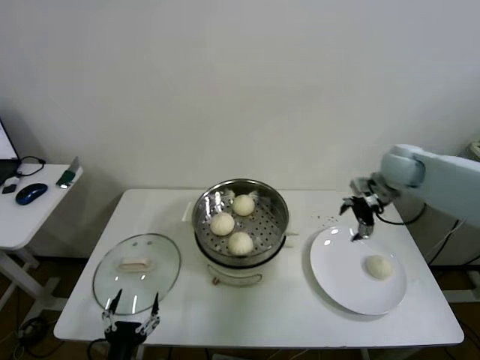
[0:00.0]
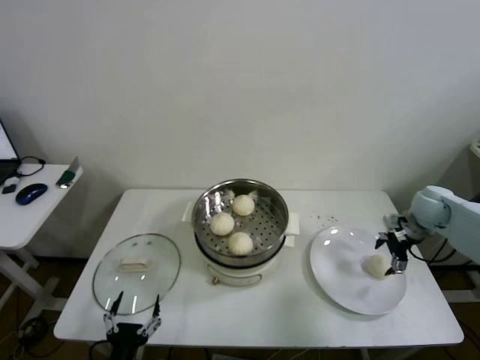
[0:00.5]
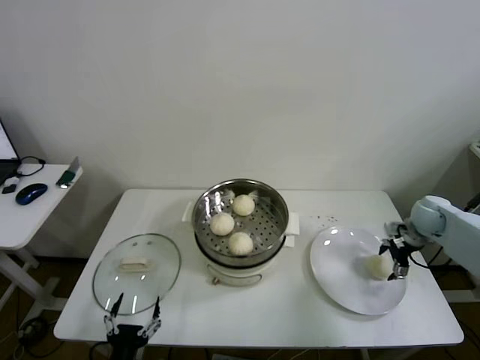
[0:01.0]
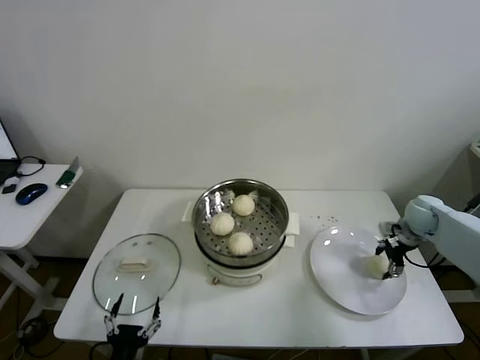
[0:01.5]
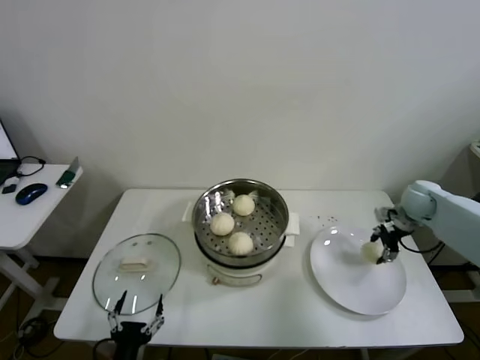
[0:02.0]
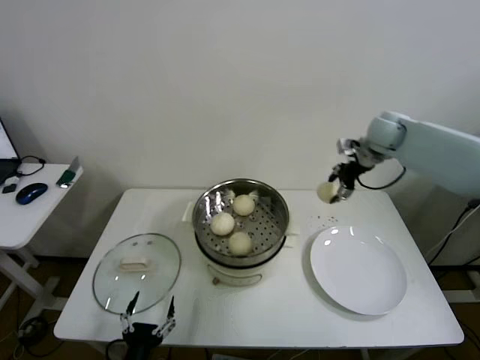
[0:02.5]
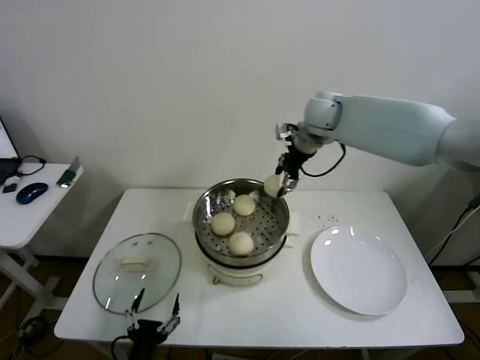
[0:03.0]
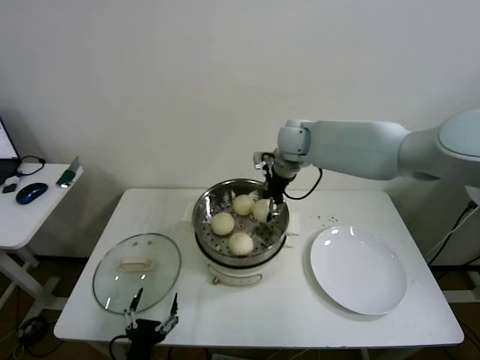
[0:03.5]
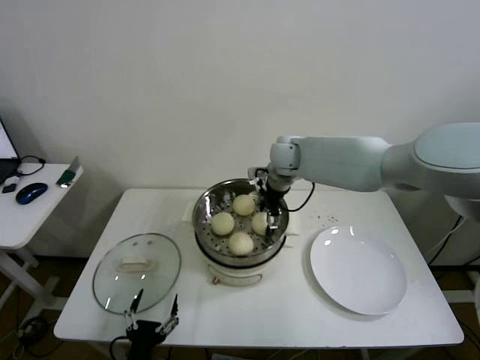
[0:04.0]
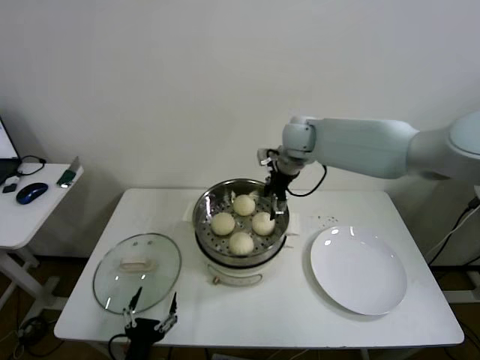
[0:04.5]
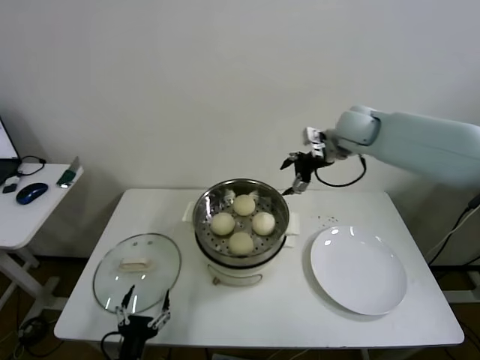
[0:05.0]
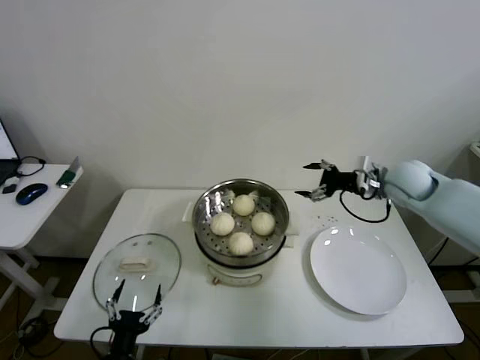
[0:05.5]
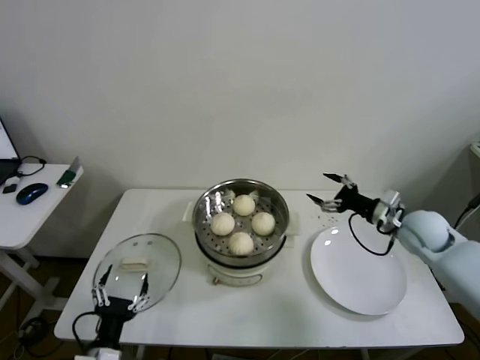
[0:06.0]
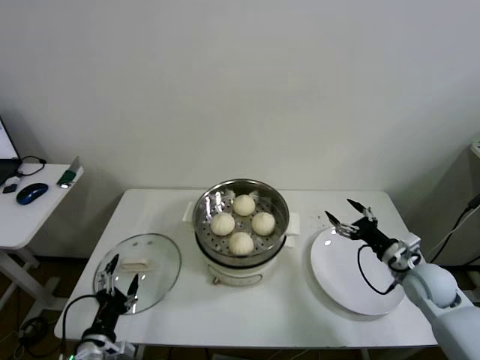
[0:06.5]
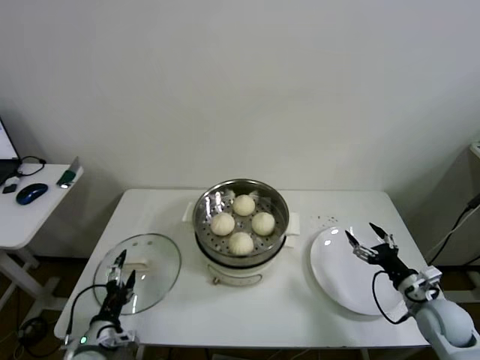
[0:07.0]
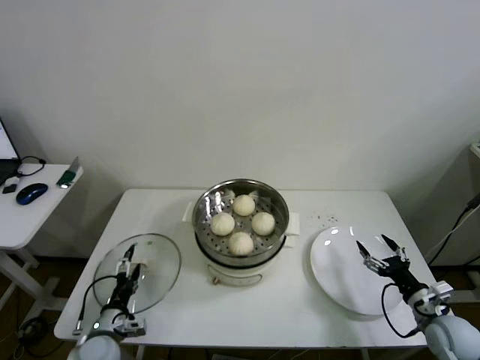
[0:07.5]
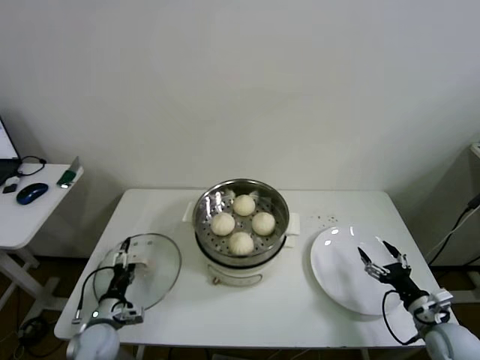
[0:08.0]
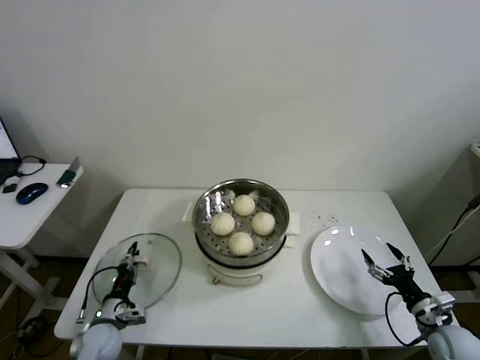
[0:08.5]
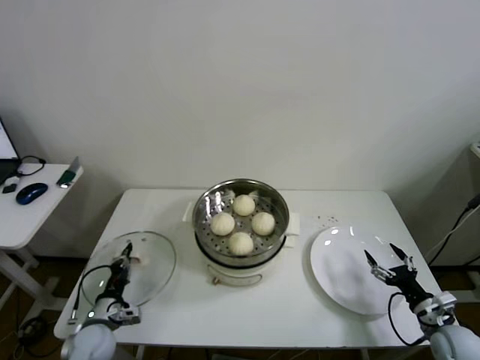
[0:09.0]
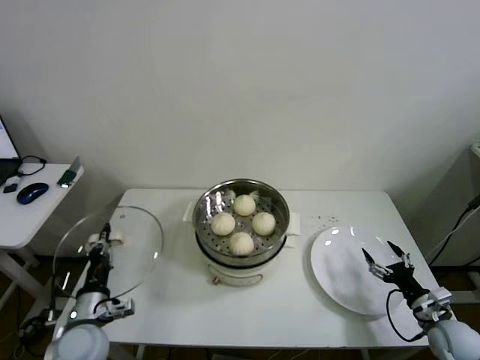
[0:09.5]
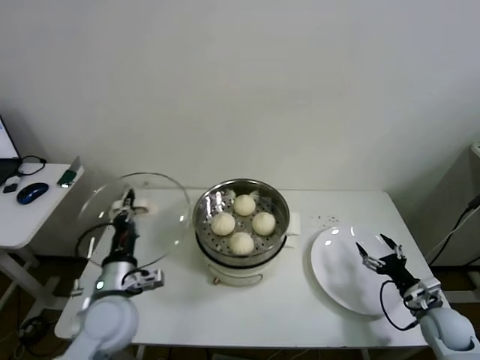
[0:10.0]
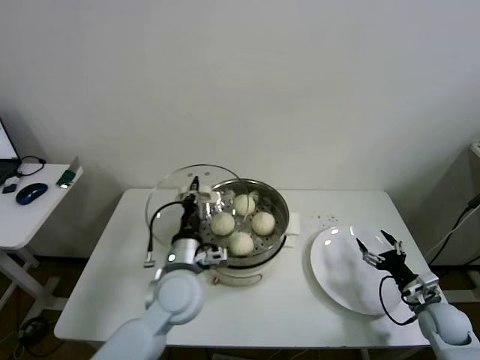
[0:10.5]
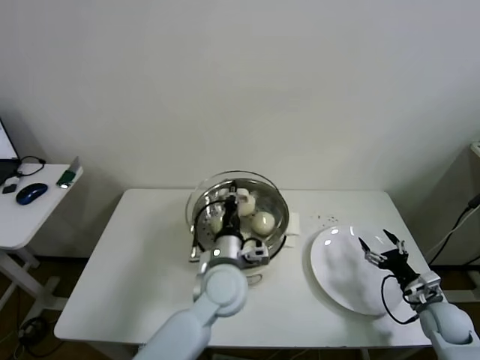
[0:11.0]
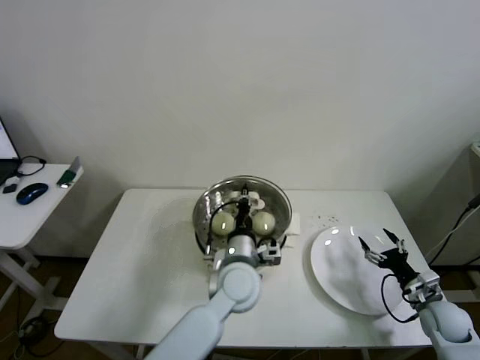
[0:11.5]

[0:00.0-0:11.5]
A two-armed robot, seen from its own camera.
Step, 0:00.0 to 0:01.5: Grasp the baozi in the plate with right gripper.
Step, 0:02.0 to 0:04.0: Place the baozi on the steamer with right gripper.
Step, 0:04.5 to 0:08.5: Grasp the pot lid with left gripper.
0:00.0 to 0:02.0: The right gripper heads downward and to the right, covering roughly 15 cm, and closes its fingers.
0:02.0 to 0:04.0: The right gripper heads to the left, covering approximately 35 cm, and opens its fingers.
0:04.0 to 0:06.0: The right gripper heads to the right and backward, covering approximately 35 cm; the left gripper moves roughly 5 cm.
0:06.0 to 0:07.5: The right gripper is displaced backward and downward by roughly 25 cm; the left gripper travels forward, downward and to the left by roughly 15 cm.
0:07.5 to 0:09.5: The left gripper travels upward by roughly 10 cm, and closes.
0:09.5 to 0:11.5: The left gripper moves to the right, roughly 30 cm.

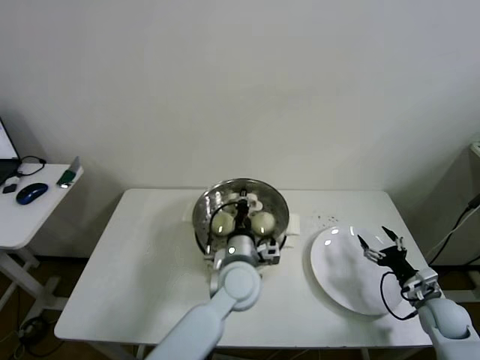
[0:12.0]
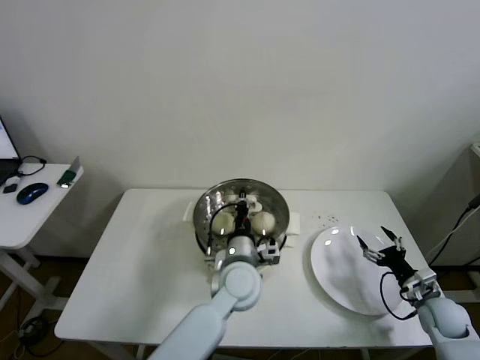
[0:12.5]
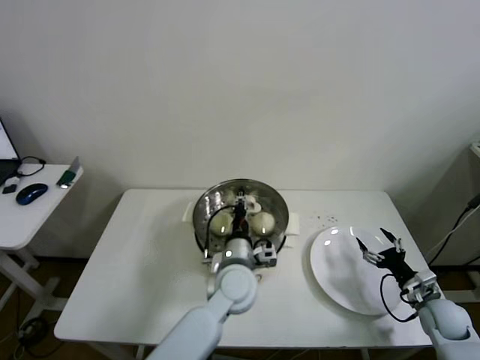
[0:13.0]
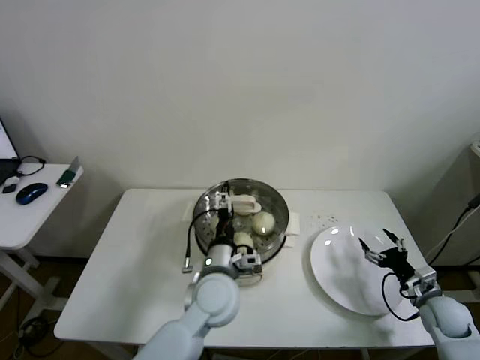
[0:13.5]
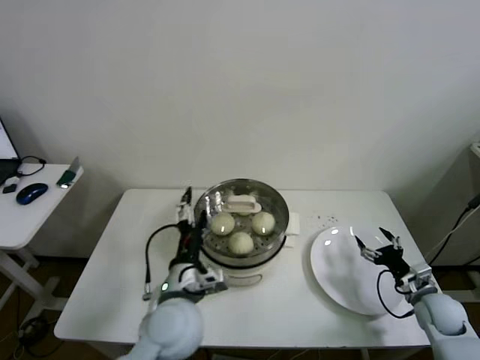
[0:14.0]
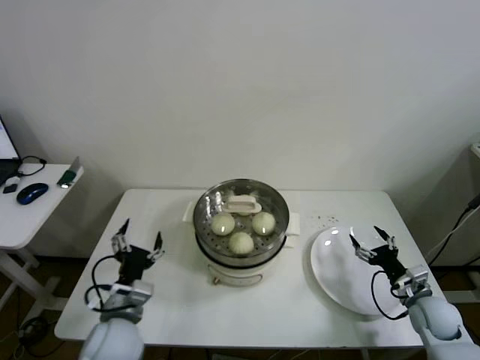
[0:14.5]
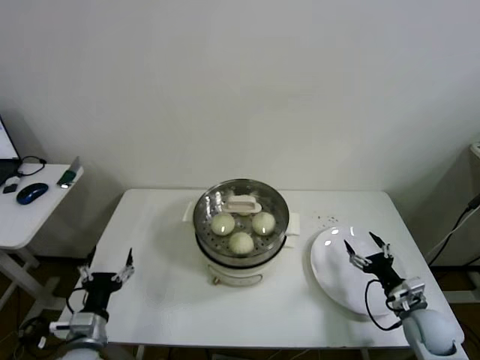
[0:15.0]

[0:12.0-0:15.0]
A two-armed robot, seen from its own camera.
0:12.0 to 0:13.5: The left gripper opens.
0:13.5 to 0:15.0: The right gripper shifts roughly 5 cm to the left, while the left gripper travels to the left and backward by some 30 cm.

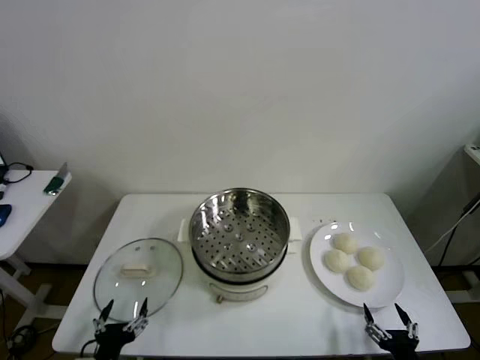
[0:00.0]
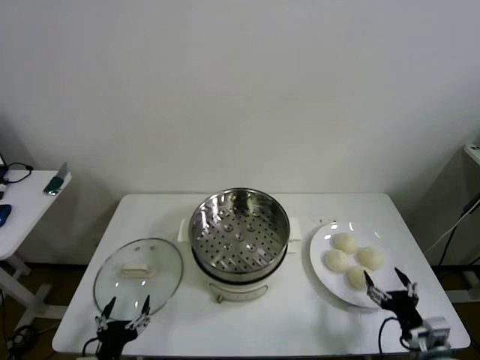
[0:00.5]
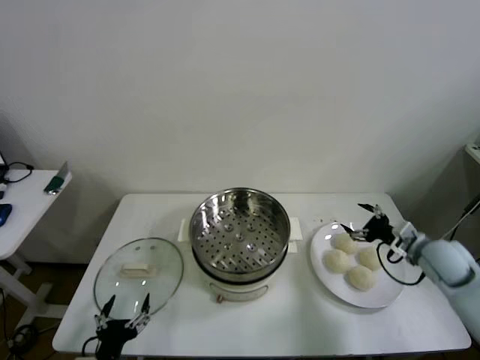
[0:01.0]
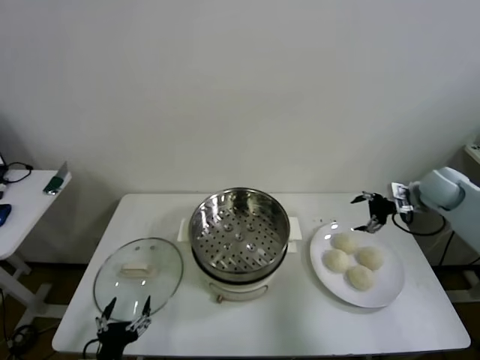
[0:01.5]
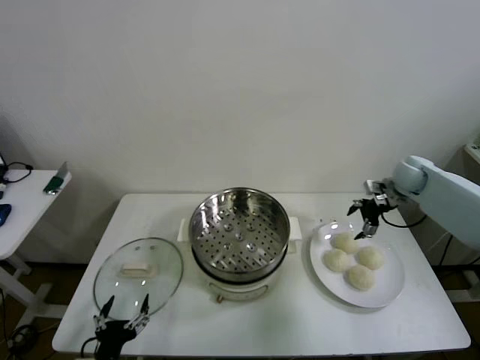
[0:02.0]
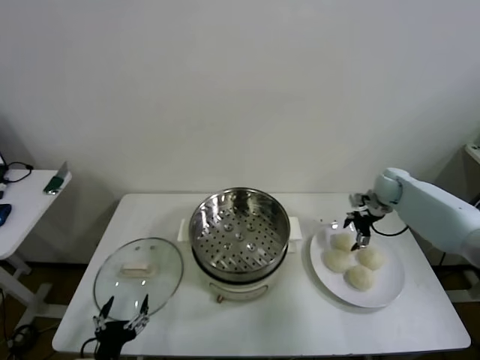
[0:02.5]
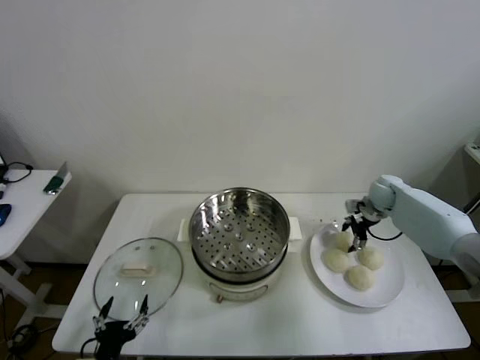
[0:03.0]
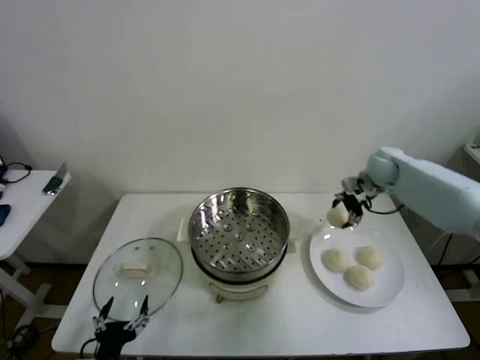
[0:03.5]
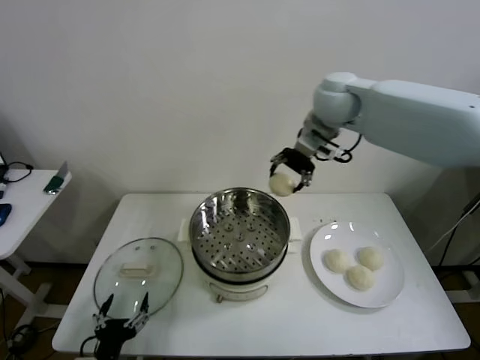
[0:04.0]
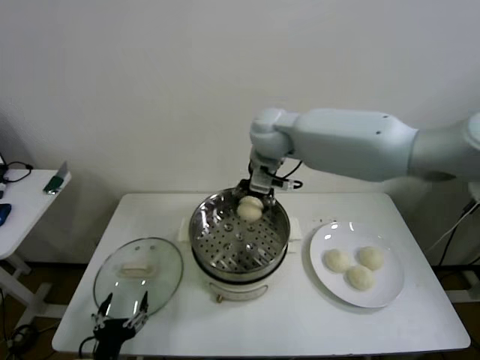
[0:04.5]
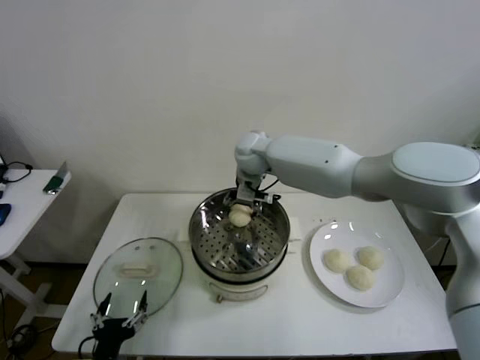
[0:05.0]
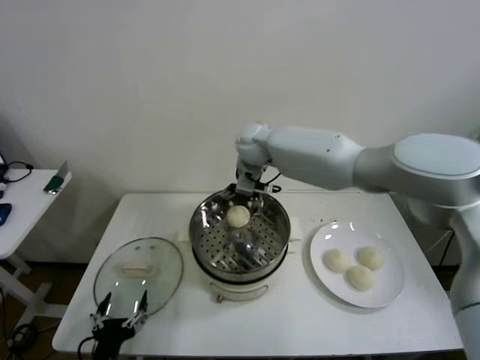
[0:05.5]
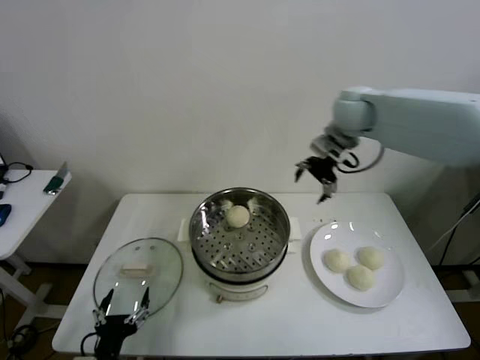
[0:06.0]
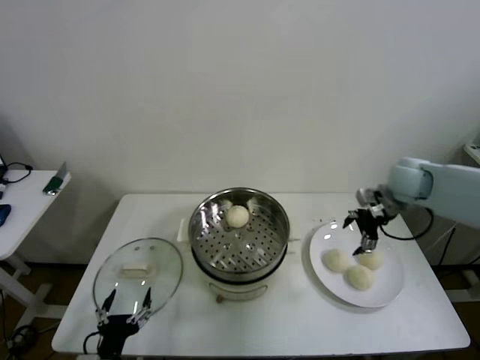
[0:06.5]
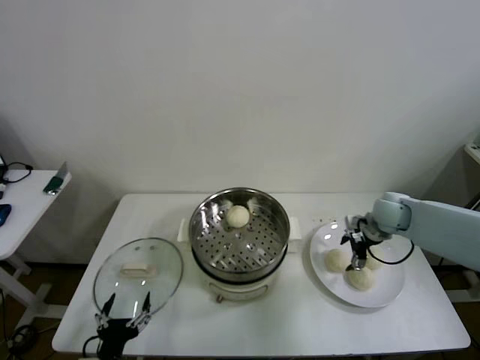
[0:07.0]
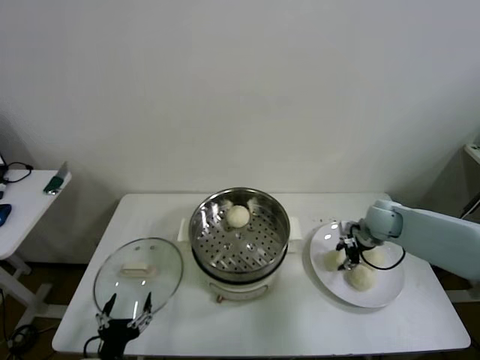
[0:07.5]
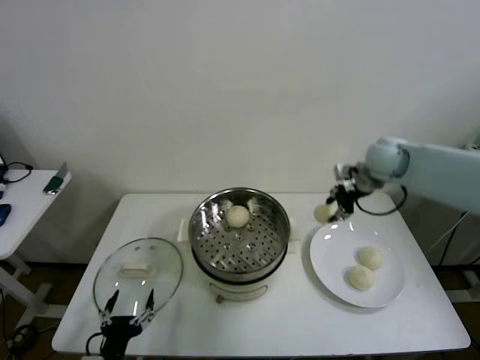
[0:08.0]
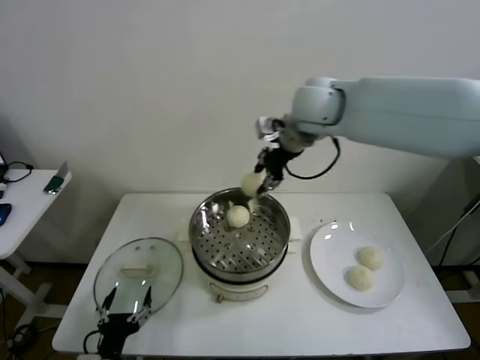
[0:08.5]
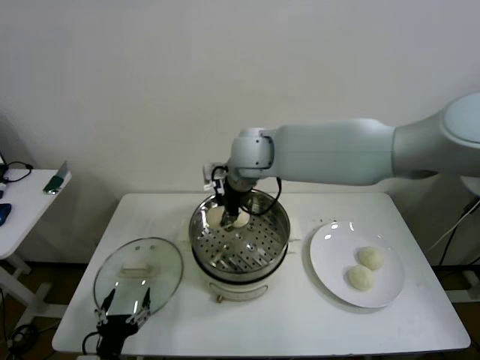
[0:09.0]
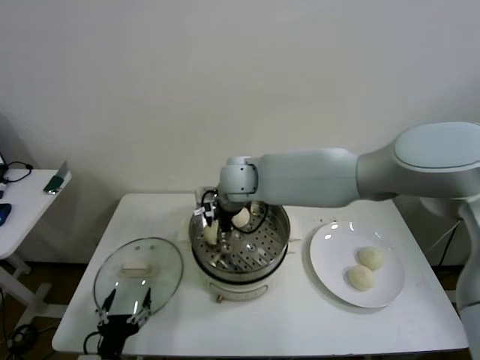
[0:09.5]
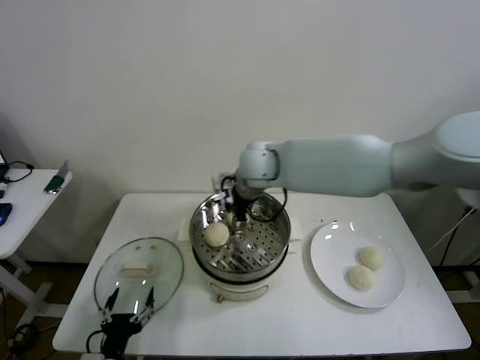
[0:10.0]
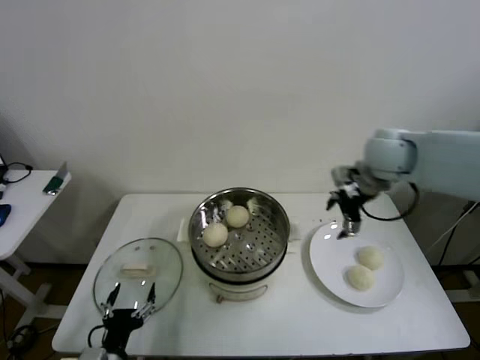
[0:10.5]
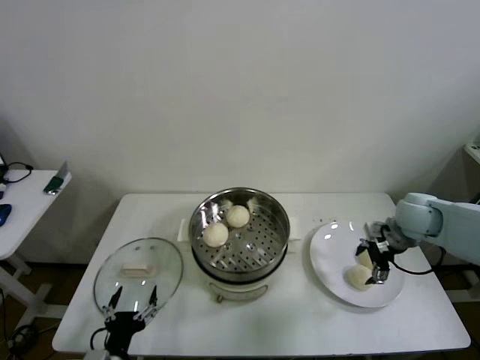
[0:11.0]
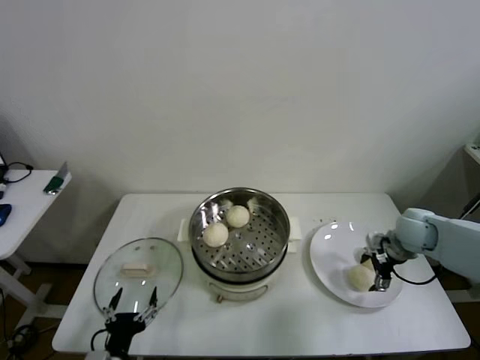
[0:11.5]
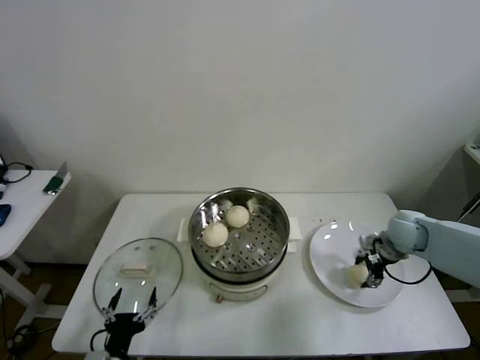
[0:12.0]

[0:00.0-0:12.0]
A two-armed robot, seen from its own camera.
Step, 0:00.0 to 0:03.0: Grasp the baozi in the plate with right gripper.
Step, 0:03.5 to 0:05.5: Place the baozi on the steamer with right gripper.
Step, 0:06.0 to 0:07.0: Grasp the baozi in the plate with right gripper.
Step, 0:07.5 to 0:09.5: Place the baozi on the steamer with right gripper.
Step, 0:10.0 to 0:11.5: Grasp the baozi in the plate with right gripper.
0:02.0 to 0:04.0: The right gripper is displaced to the left and upward by roughly 35 cm, and closes.
0:04.0 to 0:06.0: The right gripper shifts about 15 cm to the right, and opens its fingers.
0:06.0 to 0:08.0: The right gripper reaches some 25 cm downward, then returns, and closes up.
0:08.0 to 0:10.0: The right gripper travels to the left by approximately 25 cm, and opens up.
0:10.0 to 0:12.0: The right gripper moves to the right and downward, approximately 40 cm, and closes up.
